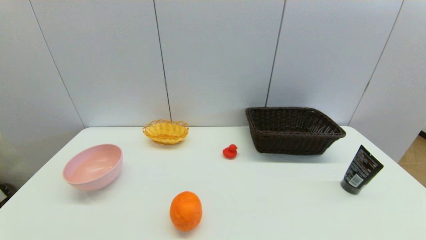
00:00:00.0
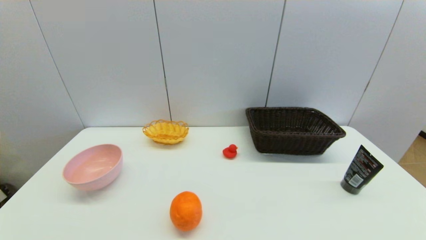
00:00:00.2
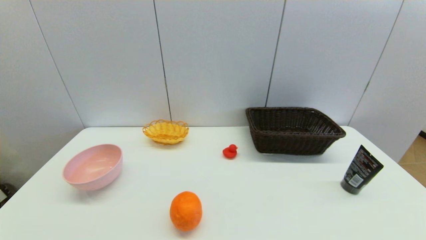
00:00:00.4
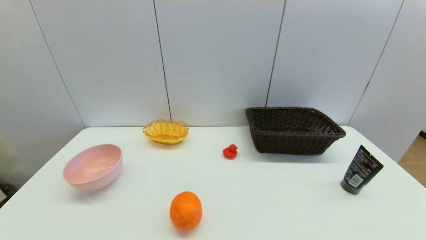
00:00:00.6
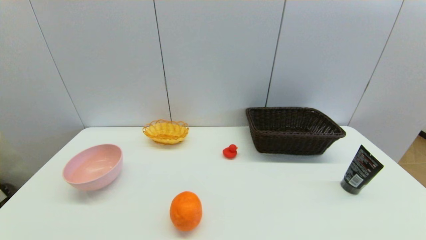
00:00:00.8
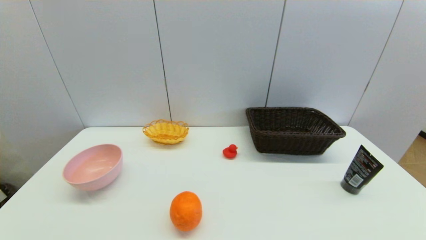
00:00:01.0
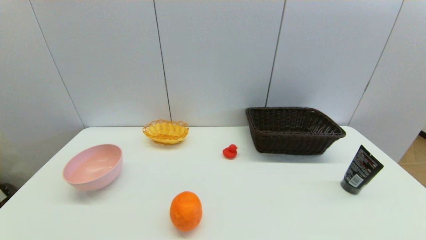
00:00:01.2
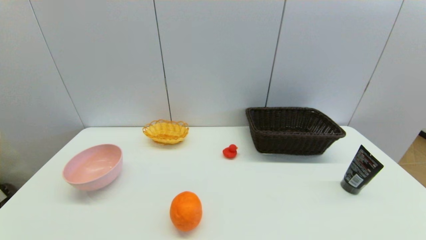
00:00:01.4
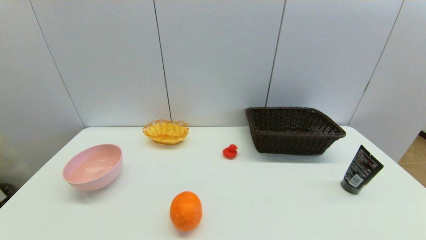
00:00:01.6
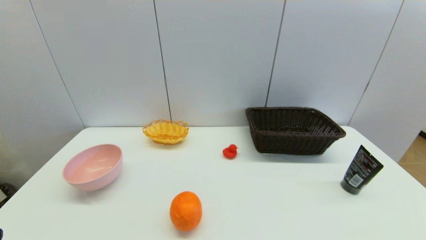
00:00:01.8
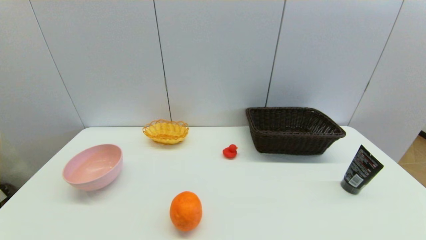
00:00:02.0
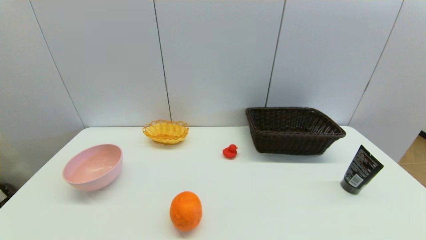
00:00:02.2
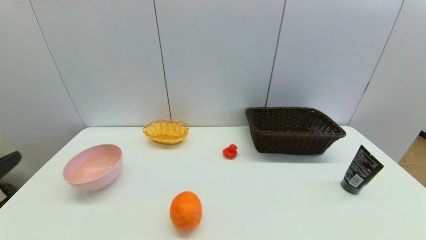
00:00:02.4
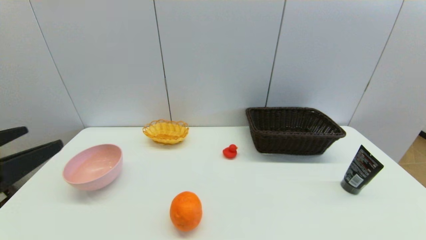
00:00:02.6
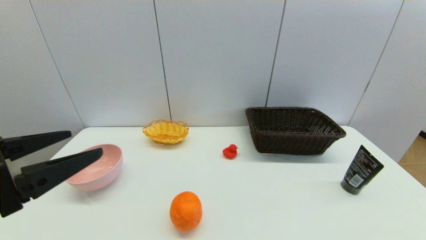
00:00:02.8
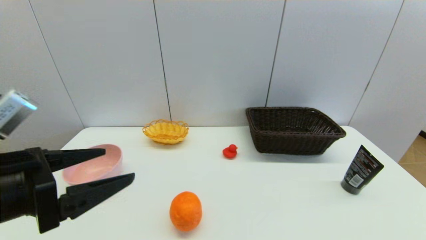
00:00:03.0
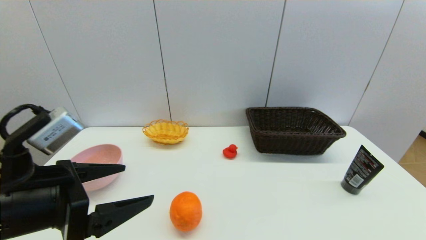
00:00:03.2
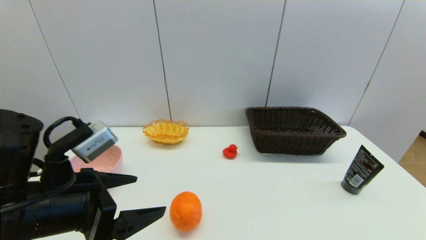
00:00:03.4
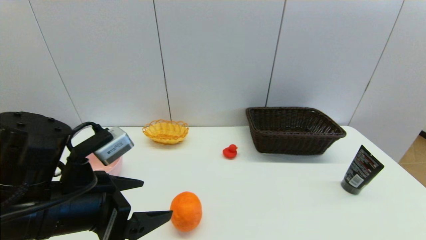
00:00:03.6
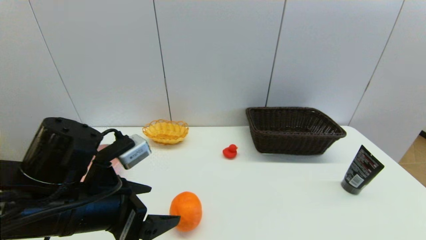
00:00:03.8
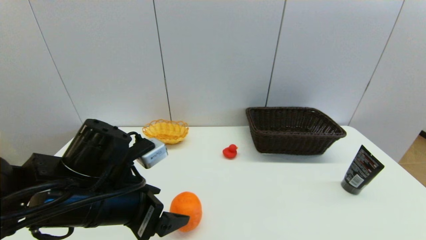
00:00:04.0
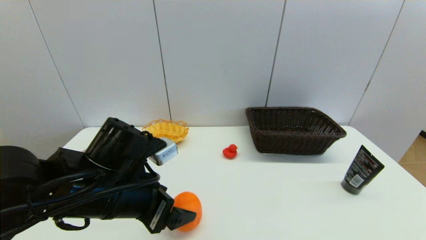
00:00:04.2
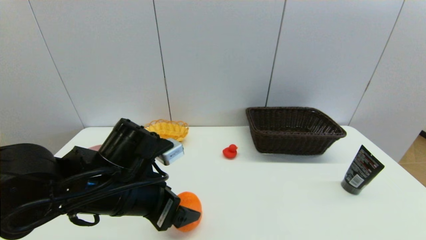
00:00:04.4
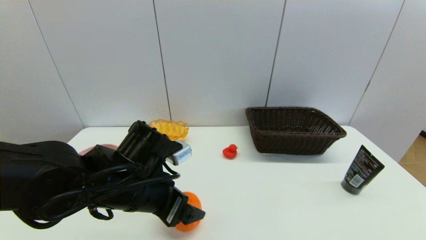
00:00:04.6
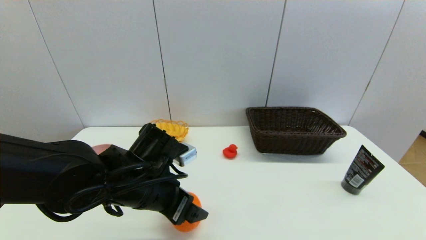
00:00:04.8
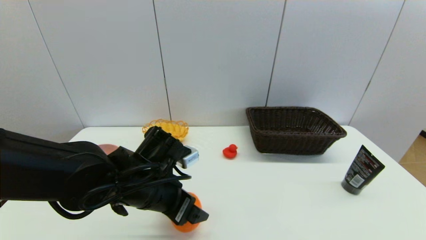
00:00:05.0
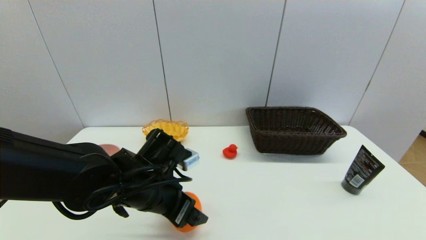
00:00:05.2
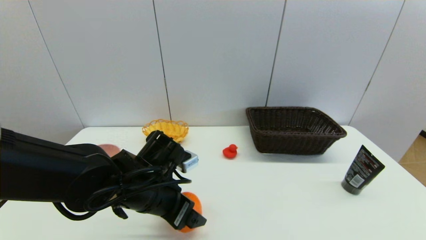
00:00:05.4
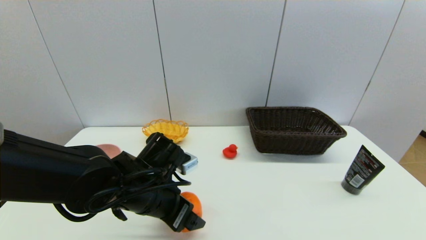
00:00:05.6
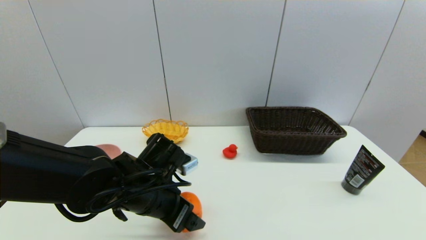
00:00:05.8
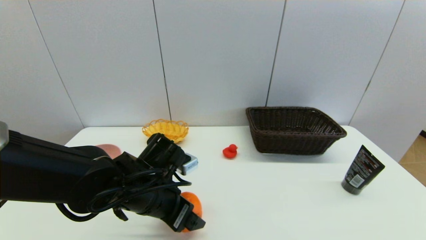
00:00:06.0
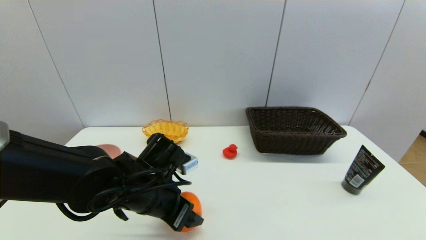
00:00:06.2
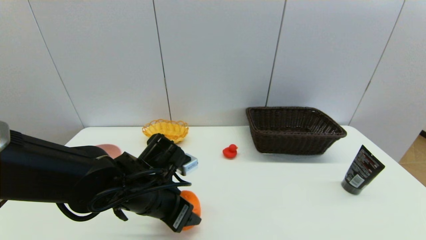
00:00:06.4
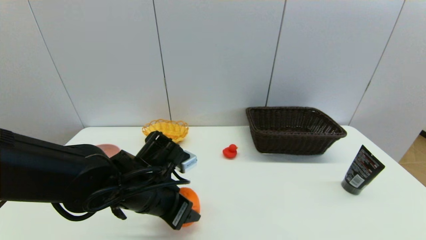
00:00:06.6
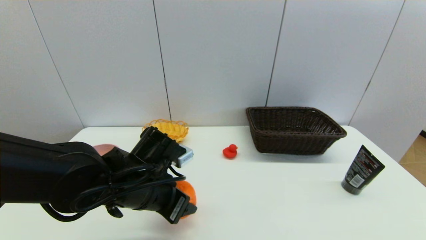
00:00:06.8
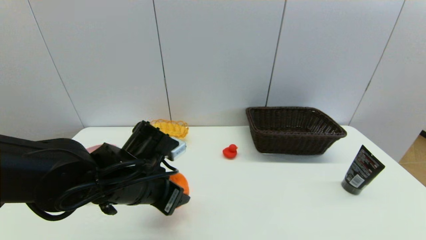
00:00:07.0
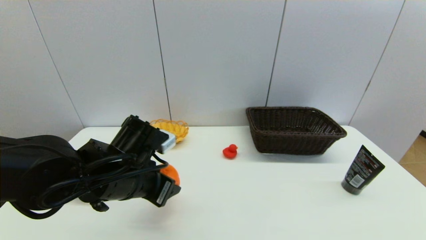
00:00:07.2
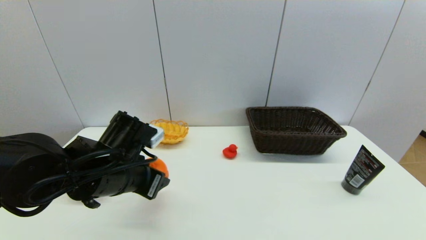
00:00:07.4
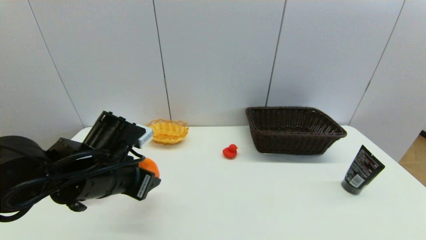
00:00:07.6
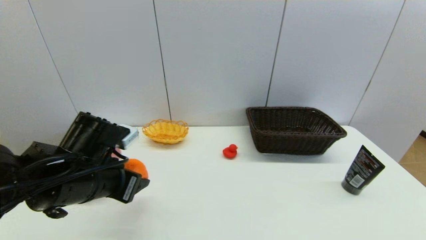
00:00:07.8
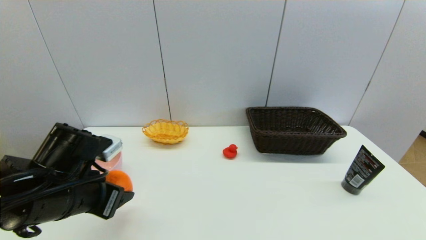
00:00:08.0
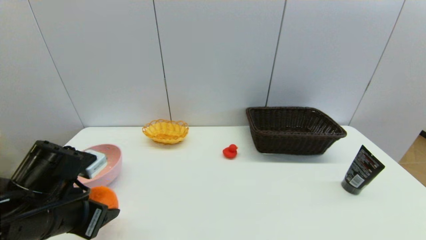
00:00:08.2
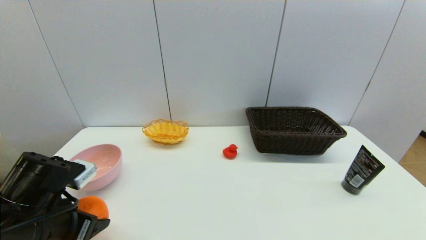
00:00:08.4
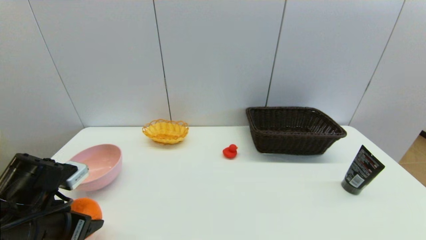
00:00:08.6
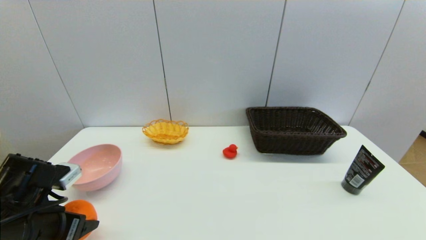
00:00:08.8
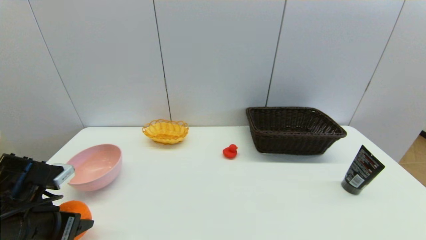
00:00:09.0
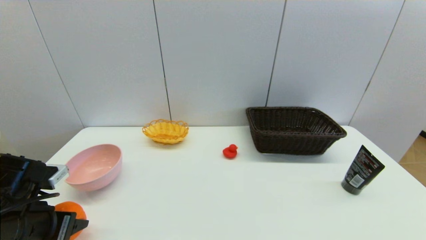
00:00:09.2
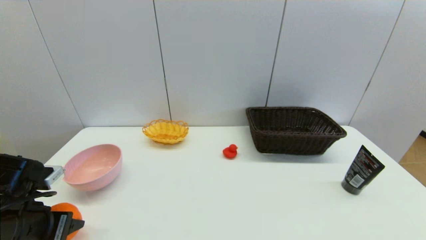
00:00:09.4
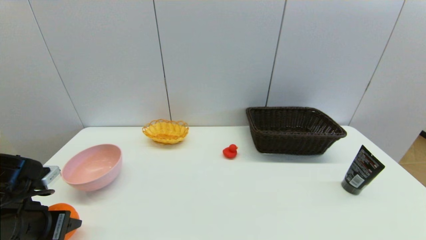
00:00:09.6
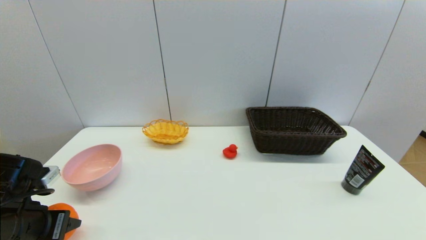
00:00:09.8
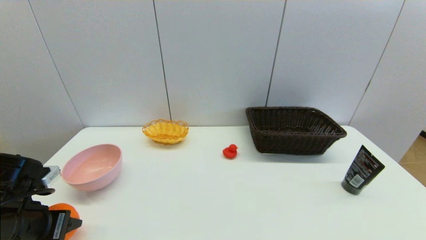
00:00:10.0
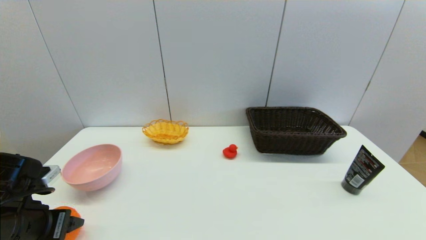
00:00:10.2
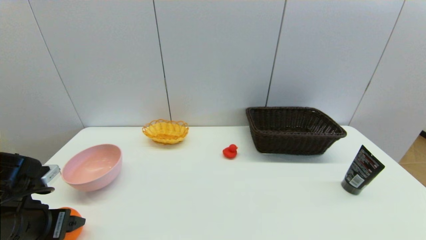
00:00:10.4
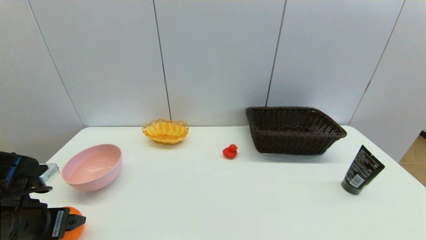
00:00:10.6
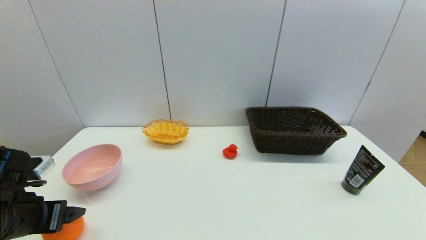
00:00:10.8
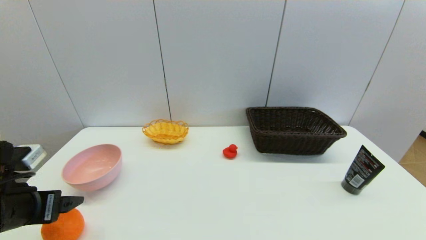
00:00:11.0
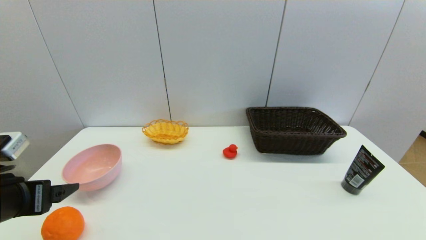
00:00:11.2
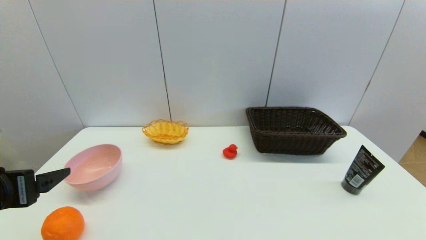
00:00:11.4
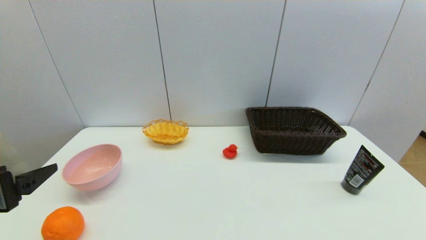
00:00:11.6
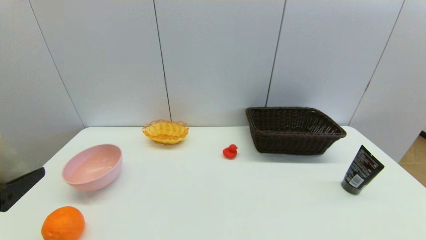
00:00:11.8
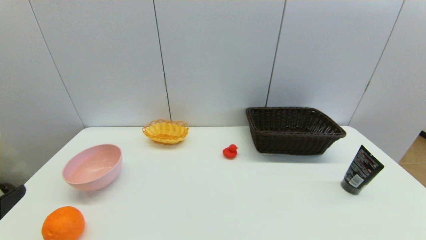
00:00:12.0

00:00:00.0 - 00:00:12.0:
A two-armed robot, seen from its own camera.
Step, 00:00:02.4 - 00:00:06.4: Grasp the orange with left gripper.
Step, 00:00:06.6 - 00:00:10.6: Place the orange on the table with left gripper.
00:00:01.6 - 00:00:03.0: The left gripper heads upward, forward and to the right, covering about 20 cm.
00:00:03.0 - 00:00:04.4: The left gripper travels to the right, downward and forward by some 15 cm.
00:00:04.4 - 00:00:06.0: The left gripper ends up approximately 5 cm from where it was.
00:00:06.0 - 00:00:07.6: The left gripper heads to the left, covering roughly 5 cm, and closes.
00:00:07.6 - 00:00:09.0: The left gripper heads to the left and backward, covering approximately 10 cm.
00:00:09.0 - 00:00:10.4: The left gripper opens its fingers.
00:00:10.4 - 00:00:12.0: The left gripper moves backward and upward, some 15 cm, and opens its fingers.

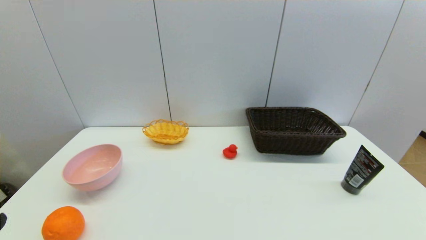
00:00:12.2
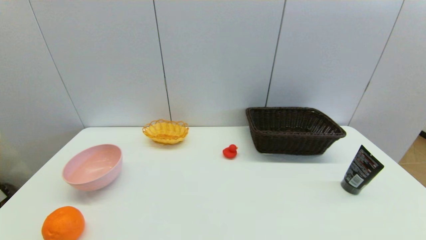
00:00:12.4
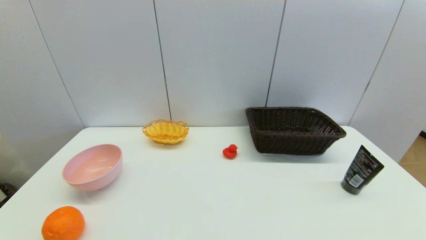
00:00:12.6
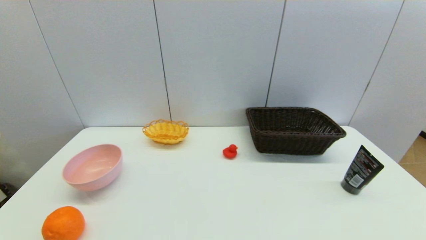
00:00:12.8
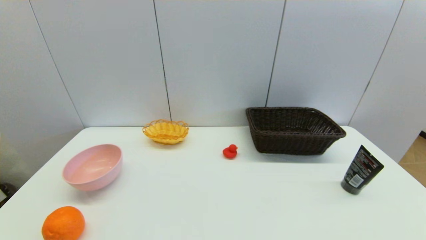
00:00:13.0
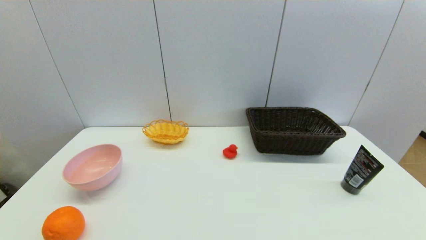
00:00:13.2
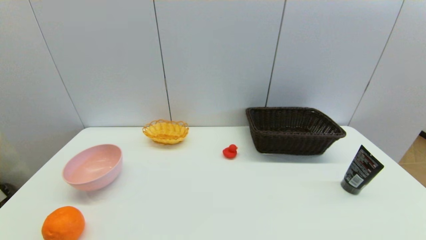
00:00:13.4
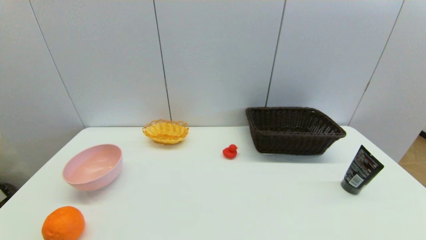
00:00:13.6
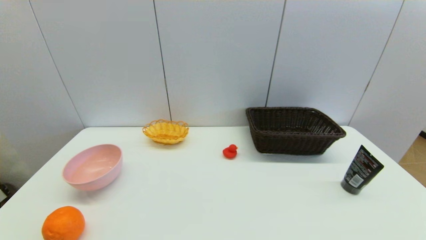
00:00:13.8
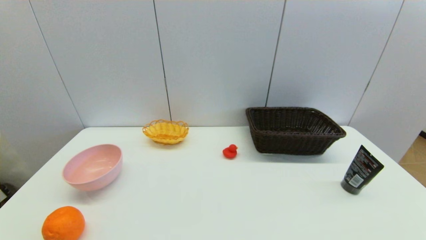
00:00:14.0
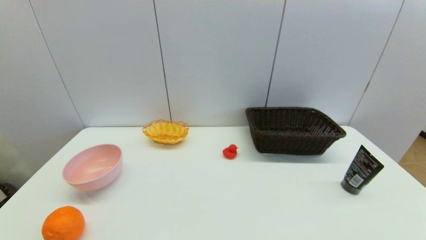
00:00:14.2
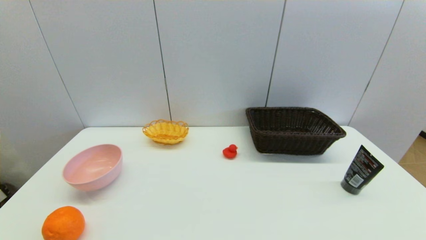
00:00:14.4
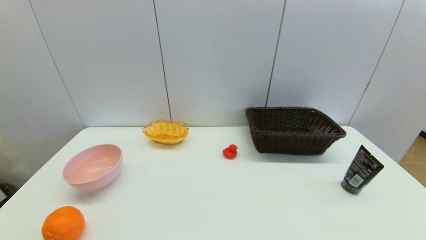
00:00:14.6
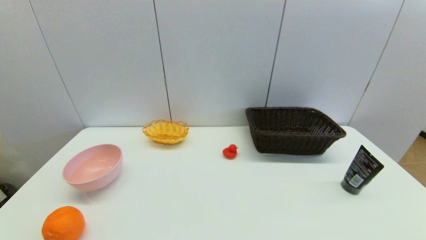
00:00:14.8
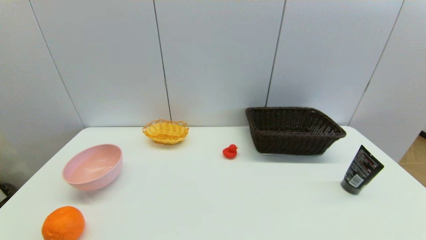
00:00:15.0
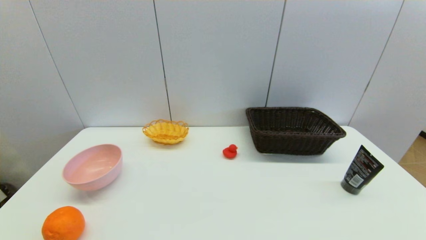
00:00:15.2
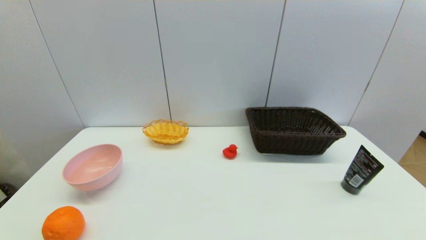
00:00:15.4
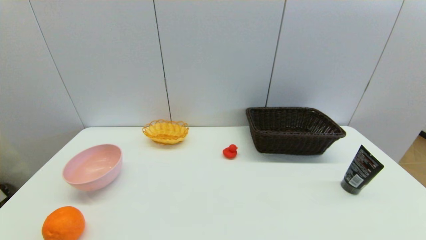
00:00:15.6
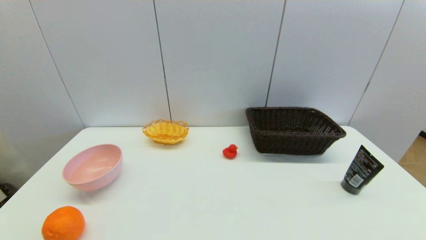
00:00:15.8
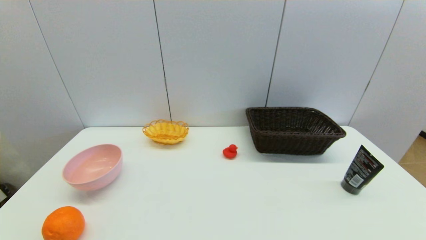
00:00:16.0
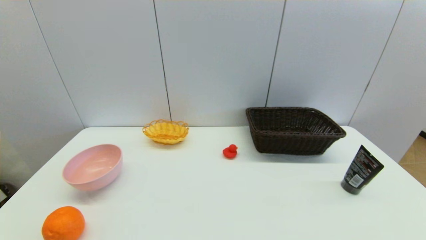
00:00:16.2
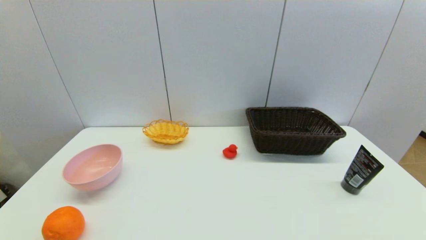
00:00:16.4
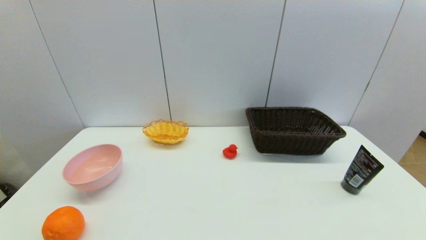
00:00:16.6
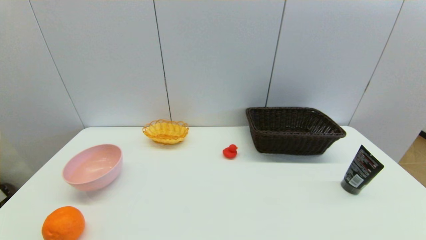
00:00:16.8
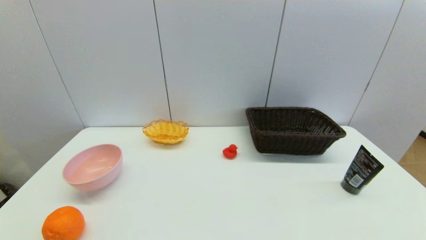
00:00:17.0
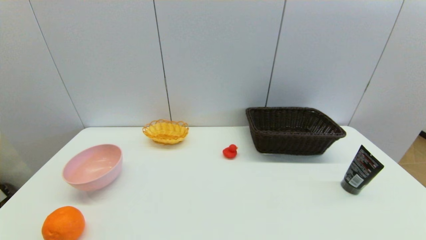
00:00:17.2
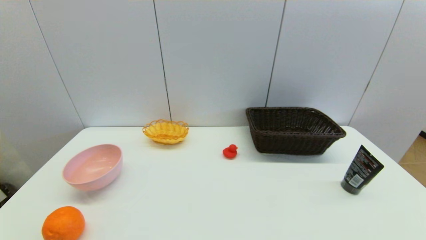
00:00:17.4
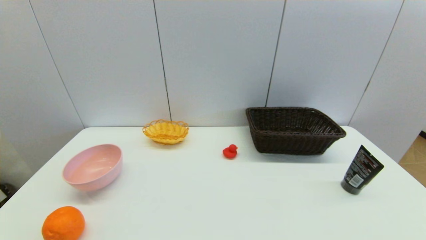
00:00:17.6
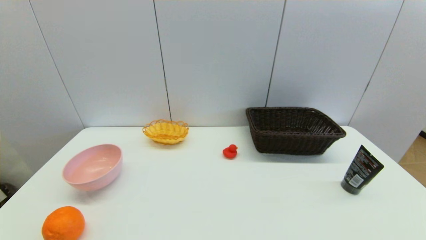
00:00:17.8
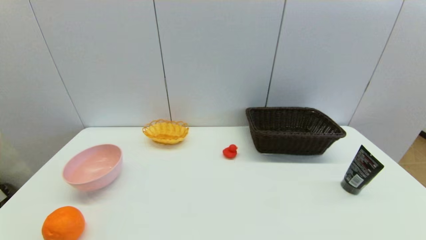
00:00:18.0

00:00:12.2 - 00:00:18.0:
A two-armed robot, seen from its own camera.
00:00:15.0 - 00:00:18.0: Both grippers stay put.
